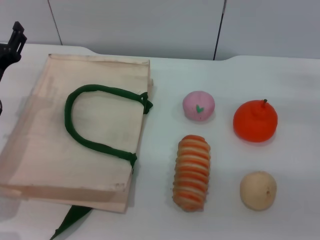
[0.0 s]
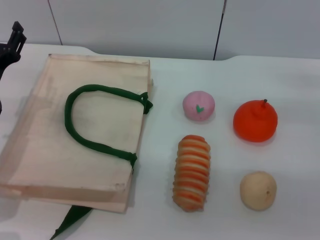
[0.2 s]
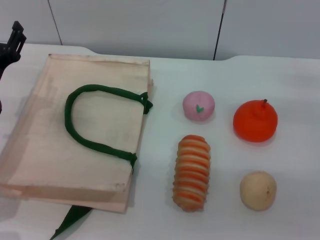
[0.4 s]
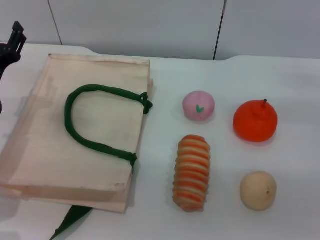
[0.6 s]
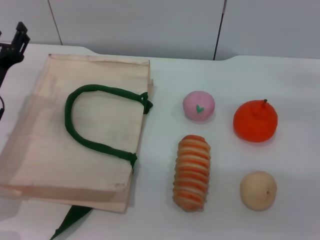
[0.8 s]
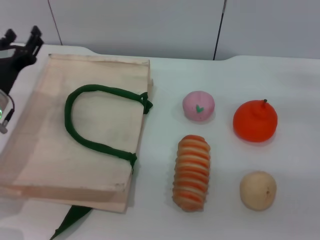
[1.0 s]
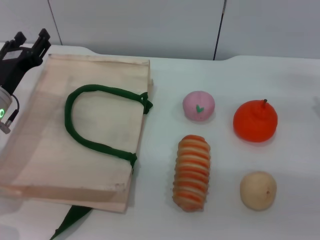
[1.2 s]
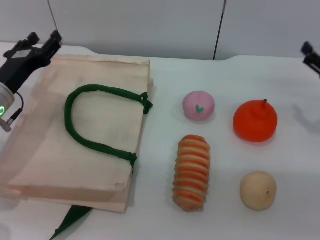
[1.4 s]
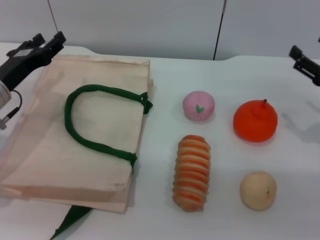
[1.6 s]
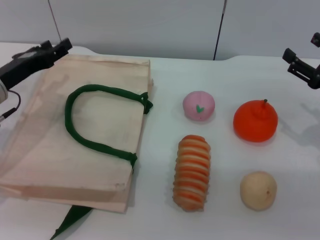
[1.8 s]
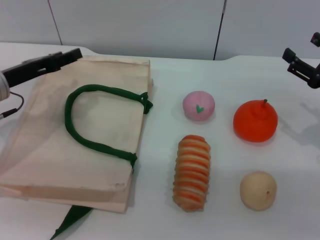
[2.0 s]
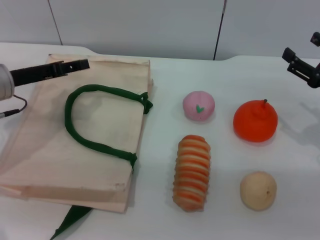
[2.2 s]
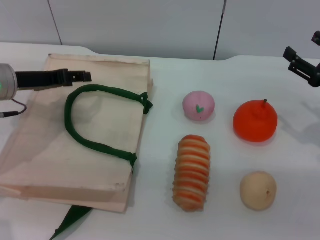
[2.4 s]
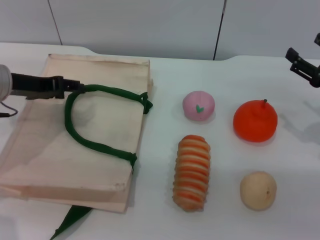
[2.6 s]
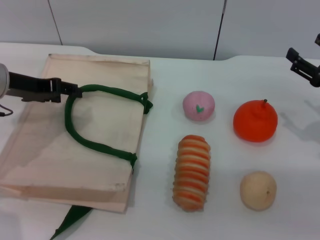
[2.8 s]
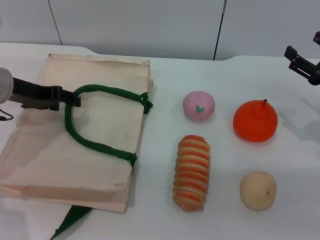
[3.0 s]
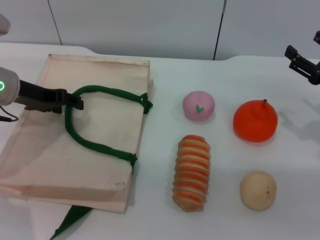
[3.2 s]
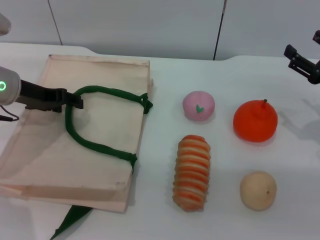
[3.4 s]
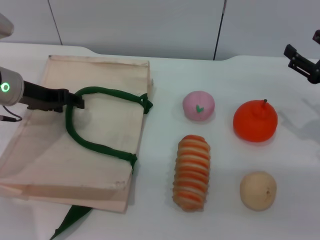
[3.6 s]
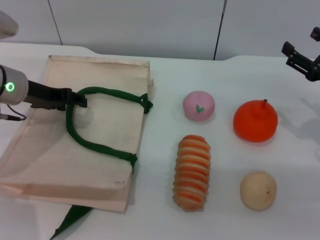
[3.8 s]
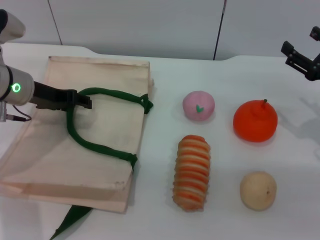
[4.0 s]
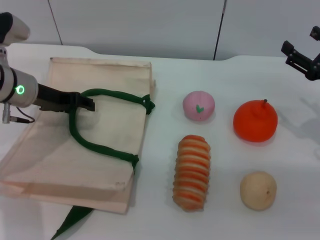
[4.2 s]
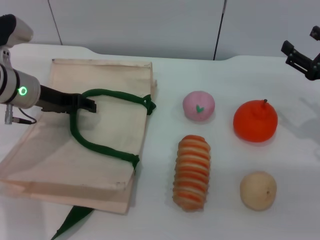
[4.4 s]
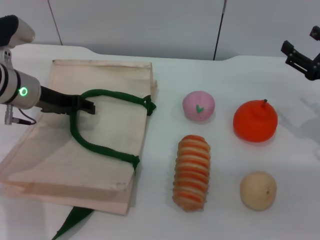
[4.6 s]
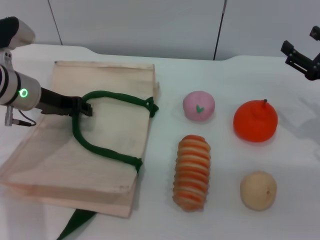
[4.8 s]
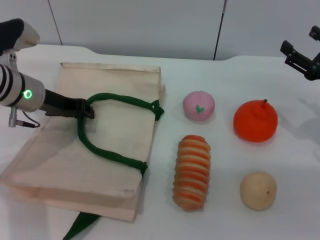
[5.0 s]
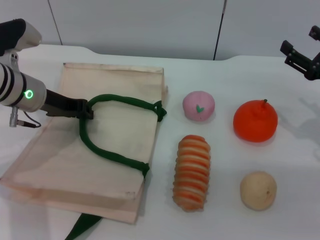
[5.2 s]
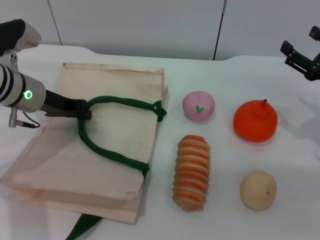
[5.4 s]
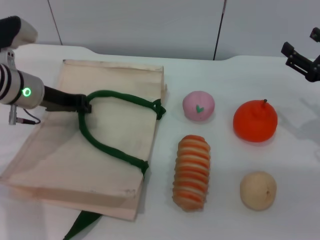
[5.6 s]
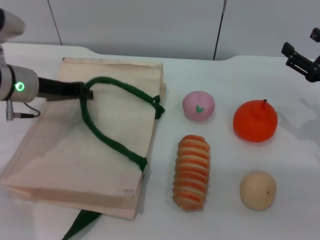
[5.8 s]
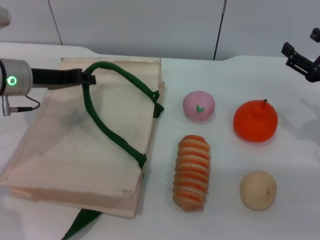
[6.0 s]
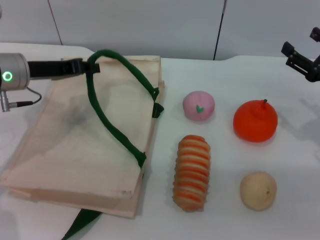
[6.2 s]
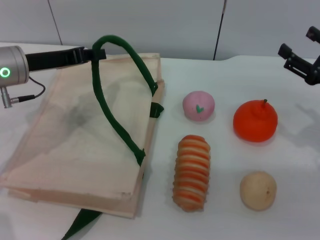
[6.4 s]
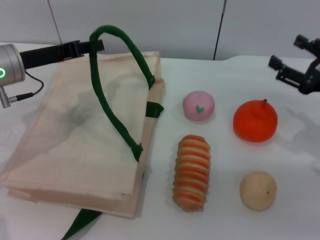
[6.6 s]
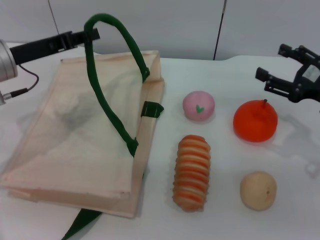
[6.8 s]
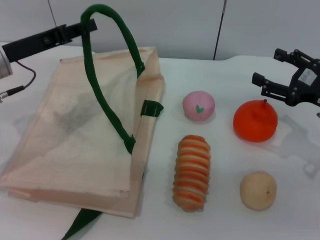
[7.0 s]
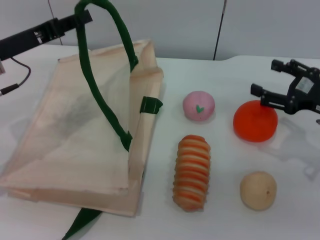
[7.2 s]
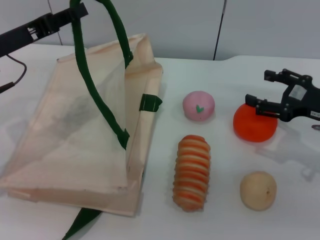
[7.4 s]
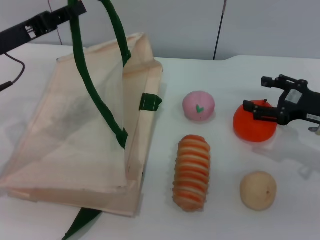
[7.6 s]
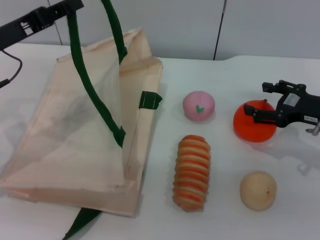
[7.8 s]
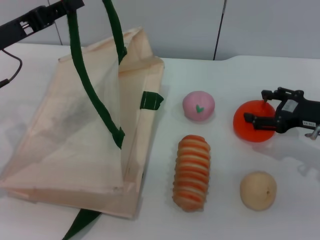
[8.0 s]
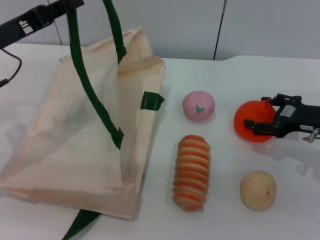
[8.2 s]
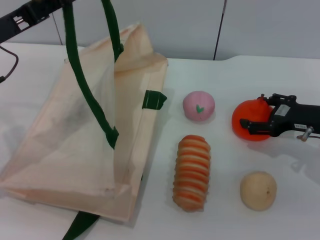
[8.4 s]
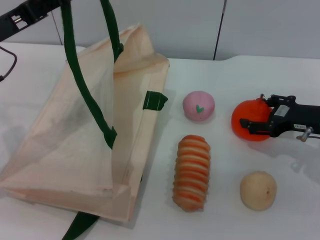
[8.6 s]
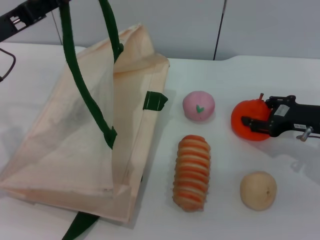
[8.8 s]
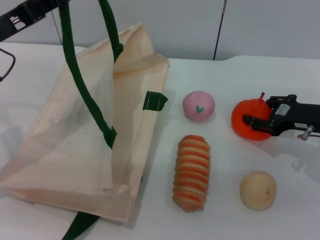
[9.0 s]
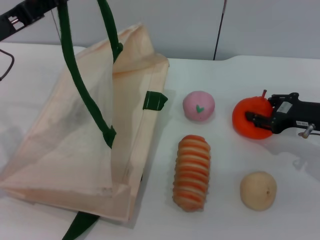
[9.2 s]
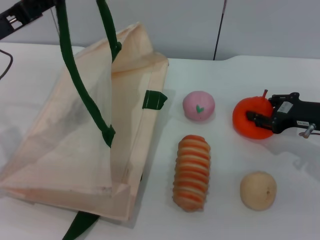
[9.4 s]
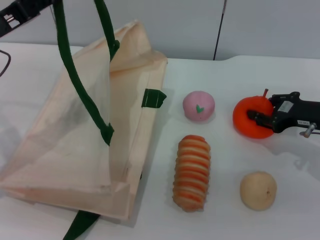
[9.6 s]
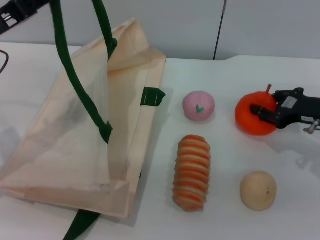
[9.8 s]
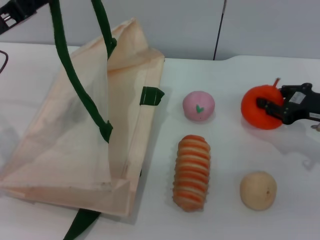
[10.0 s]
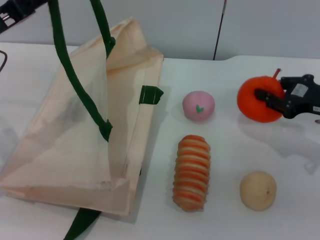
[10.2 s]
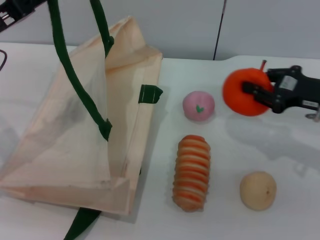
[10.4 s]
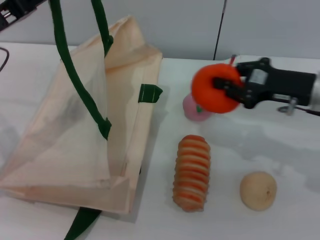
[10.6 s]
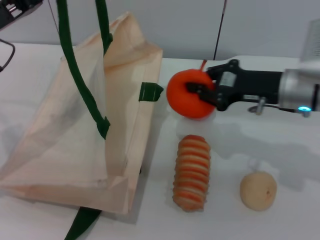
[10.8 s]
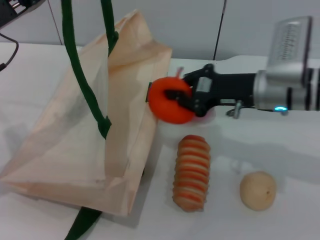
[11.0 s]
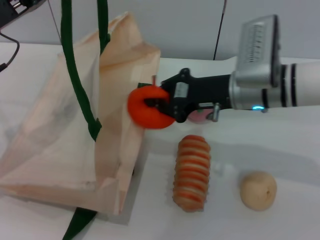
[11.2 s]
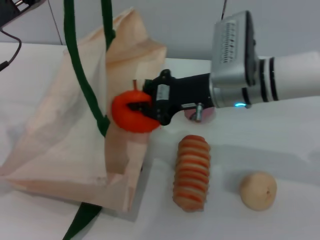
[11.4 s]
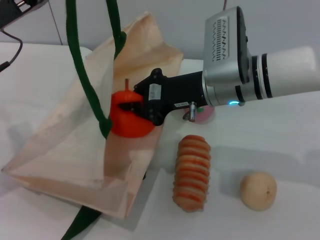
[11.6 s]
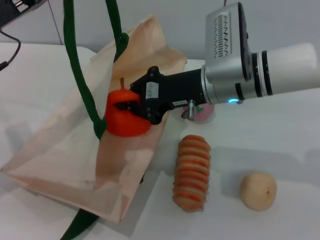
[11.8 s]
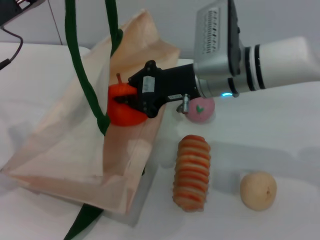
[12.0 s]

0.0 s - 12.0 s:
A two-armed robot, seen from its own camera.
Task of the whole recording: pick up the orange and peach from the table and place it in the white handbag.
Step, 0.0 s - 6.2 s: Lift the woven bag with the left gripper to open it.
Step, 6.4 s - 10.4 s: Pick up the orange with the right gripper.
1.6 s - 3.0 s: The left gripper is displaced upward by some 5 cm.
3.0 s - 4.4 s: The grippers make only small movements.
4.4 s - 6.0 s: The left gripper closes.
6.0 s - 7.6 s: The left gripper changes place by some 5 cm.
7.6 s - 9.0 s: There are only small adjustments of the grippers.
9.0 s - 10.4 s: The right gripper closes its fingers.
10.4 s - 12.0 s: The right gripper is displaced to the left by roughly 20 cm.

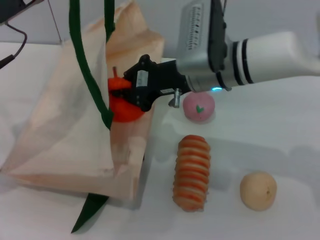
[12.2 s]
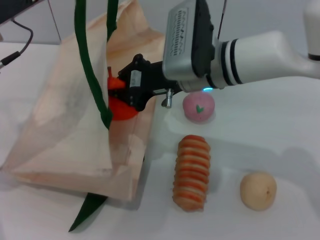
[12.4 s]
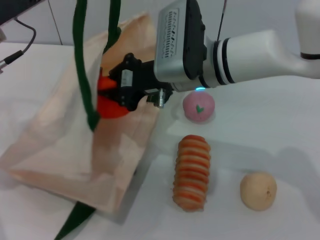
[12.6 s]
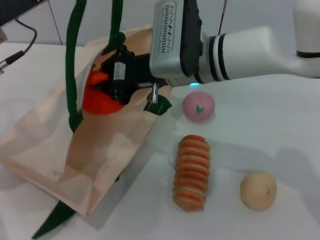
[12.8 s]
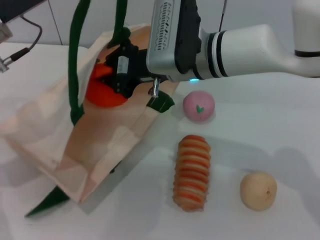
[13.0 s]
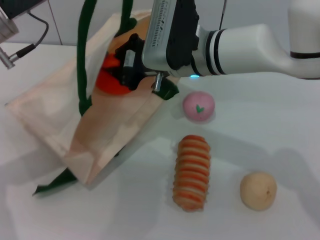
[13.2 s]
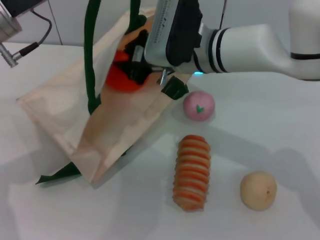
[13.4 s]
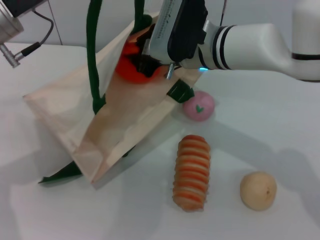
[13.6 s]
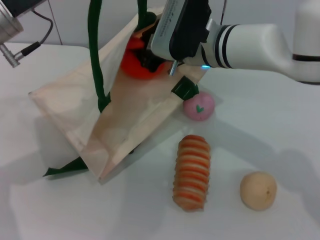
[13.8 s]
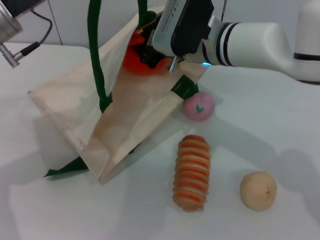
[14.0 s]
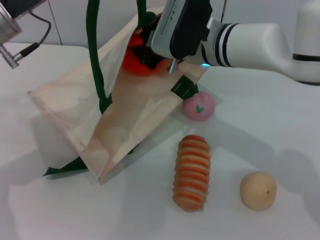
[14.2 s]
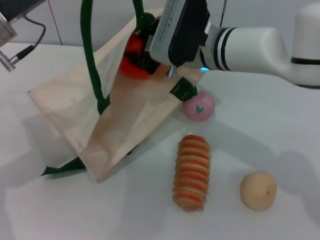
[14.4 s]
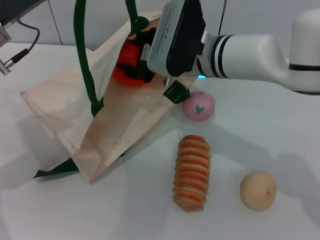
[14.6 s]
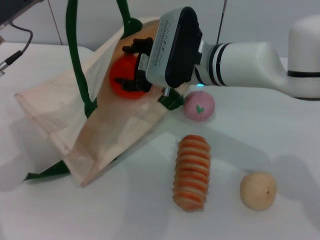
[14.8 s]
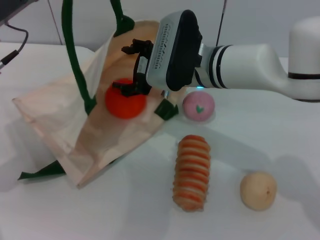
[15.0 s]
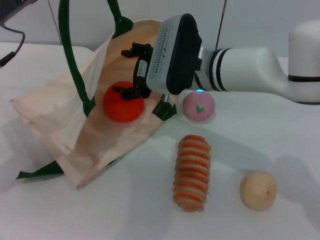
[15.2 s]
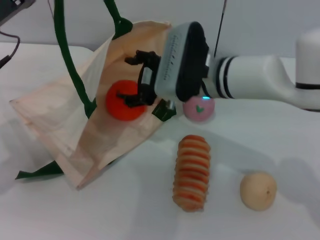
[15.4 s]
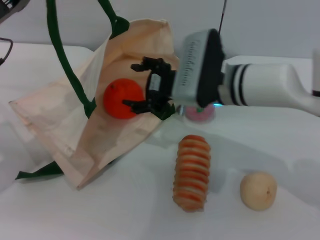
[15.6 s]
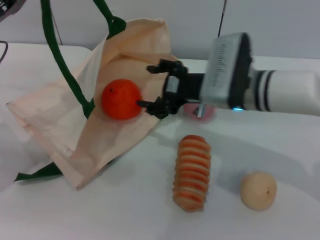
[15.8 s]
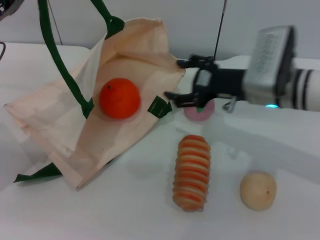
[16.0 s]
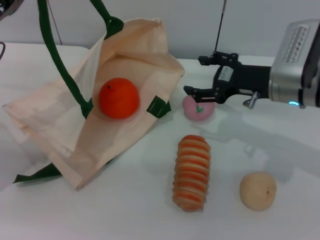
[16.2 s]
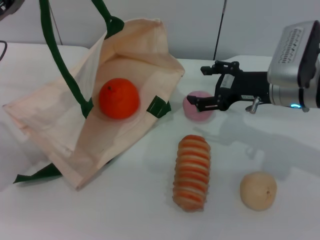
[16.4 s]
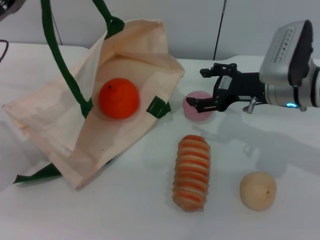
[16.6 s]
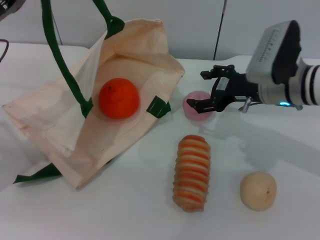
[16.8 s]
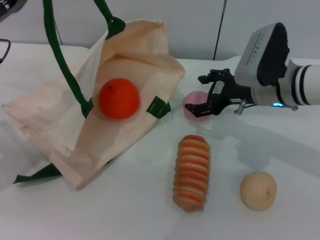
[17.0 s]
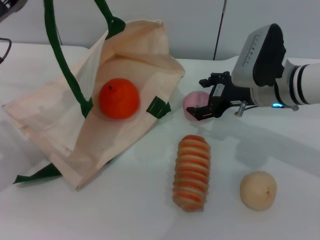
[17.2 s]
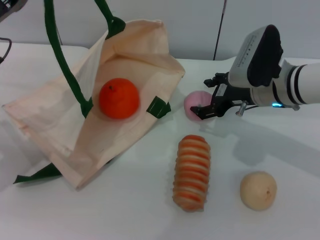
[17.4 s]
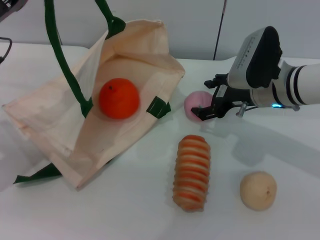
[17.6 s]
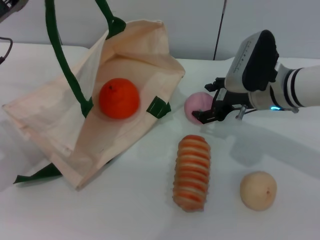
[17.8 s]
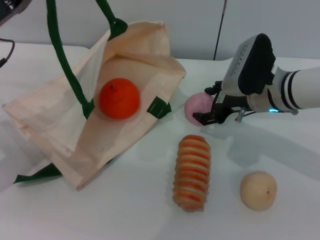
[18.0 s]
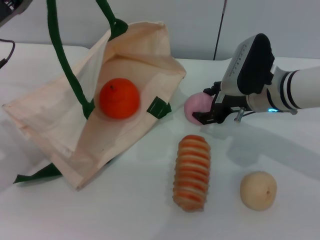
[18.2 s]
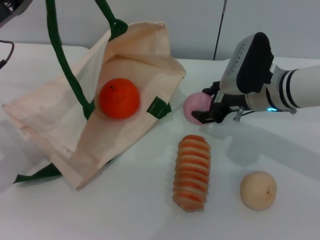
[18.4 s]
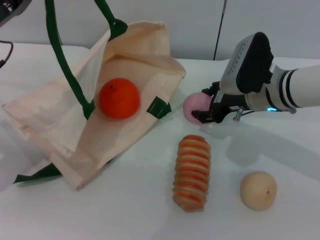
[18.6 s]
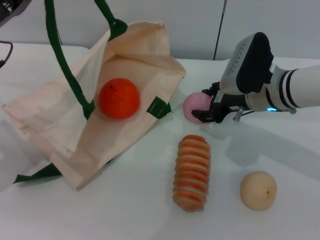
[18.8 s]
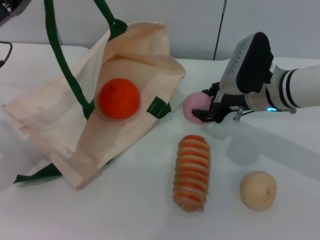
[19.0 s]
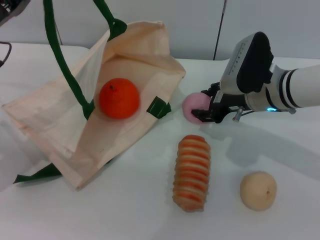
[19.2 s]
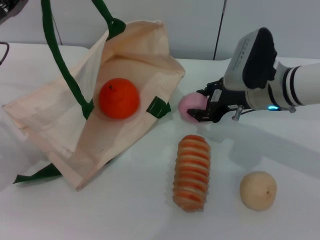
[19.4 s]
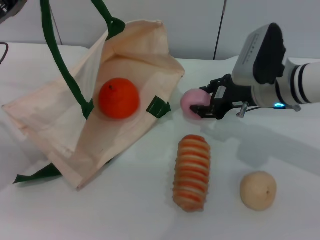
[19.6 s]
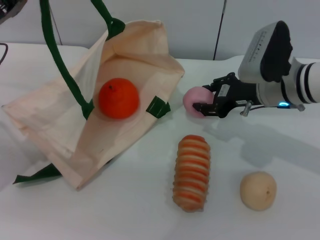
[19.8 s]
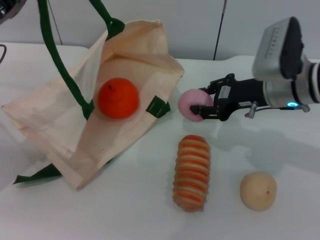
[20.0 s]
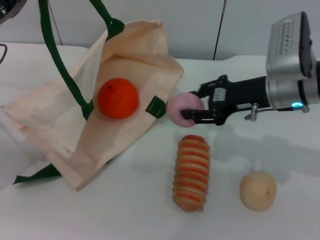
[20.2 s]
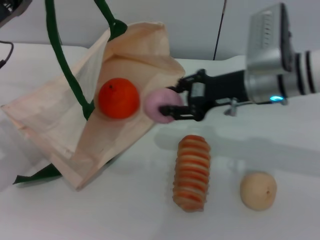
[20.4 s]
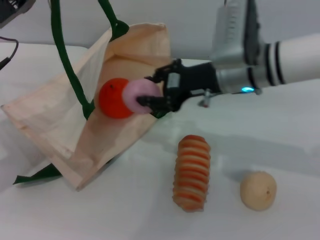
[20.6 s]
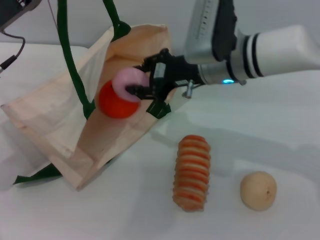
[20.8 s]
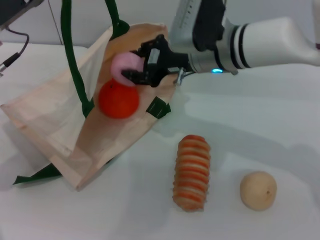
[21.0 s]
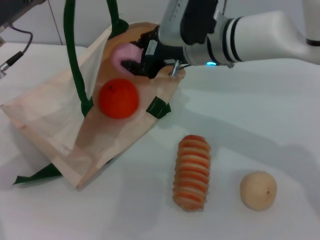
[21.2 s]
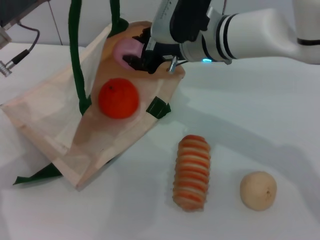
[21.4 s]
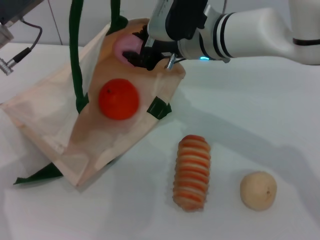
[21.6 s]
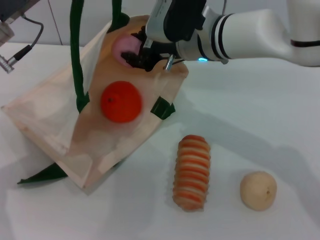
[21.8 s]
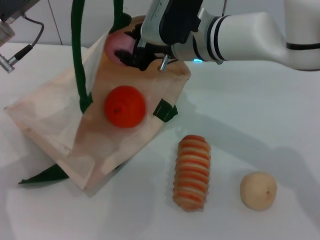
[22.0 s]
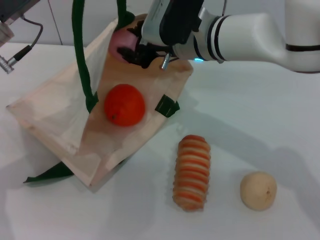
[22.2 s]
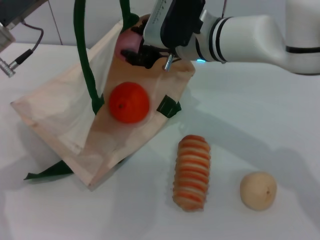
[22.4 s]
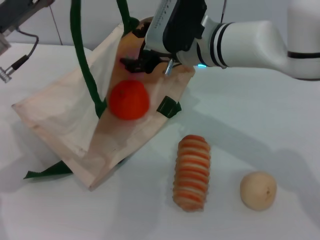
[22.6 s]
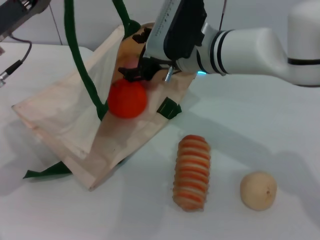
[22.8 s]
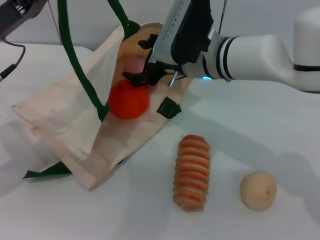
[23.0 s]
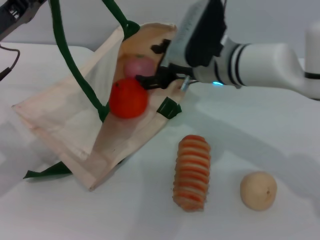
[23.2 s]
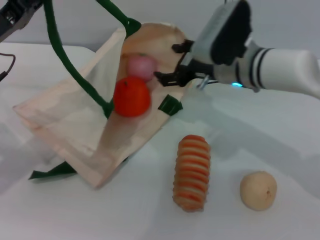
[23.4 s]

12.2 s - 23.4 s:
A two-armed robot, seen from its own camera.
Task of the whole recording: pick up the orange and peach from the table and place it in the white handbag.
Step, 12.2 s - 16.2 s: Place the orange into the woven bag with the right gripper.
Step, 16.4 s - 20.2 s: Pick up the peach with the right gripper.
Step, 20.4 s - 23.4 s: Place the peach into the woven bag with the right gripper.
13.8 s - 15.4 s: The left gripper ends up roughly 5 cm from where it was. The right gripper opens.
15.4 s - 17.0 s: The right gripper shifts approximately 10 cm to the right.
17.0 s - 18.6 s: The grippers stay close to where they were, moving slightly.
20.2 s - 21.8 s: The right gripper shifts some 15 cm to the left; the left gripper is displaced to the right by some 5 cm.
21.8 s - 23.4 s: The left gripper ends up about 5 cm from where it was, while the right gripper shifts roughly 5 cm to the right, and opens its fingers.
